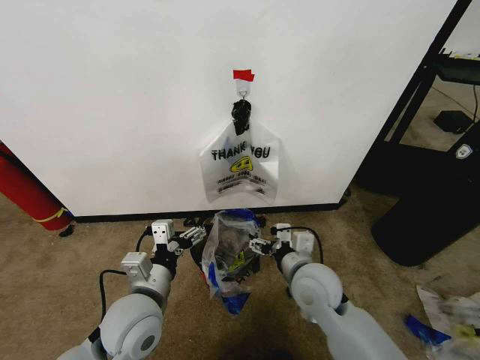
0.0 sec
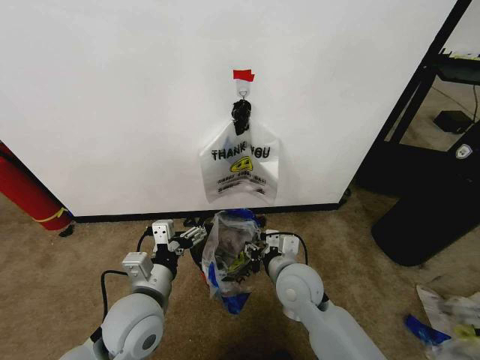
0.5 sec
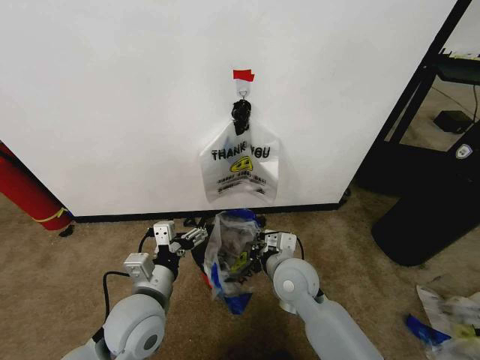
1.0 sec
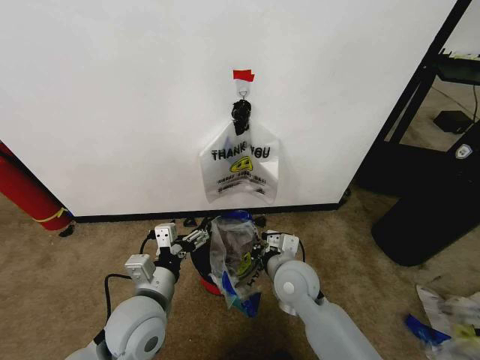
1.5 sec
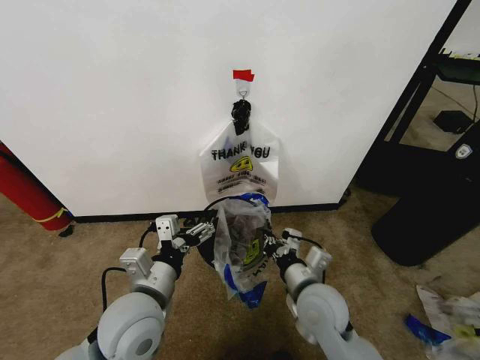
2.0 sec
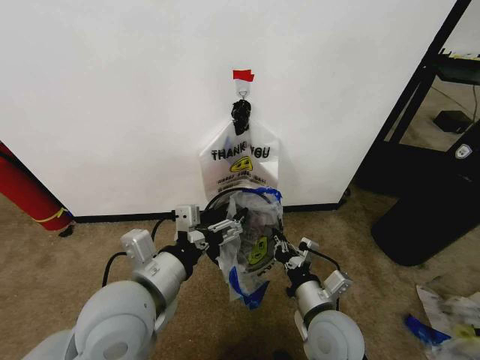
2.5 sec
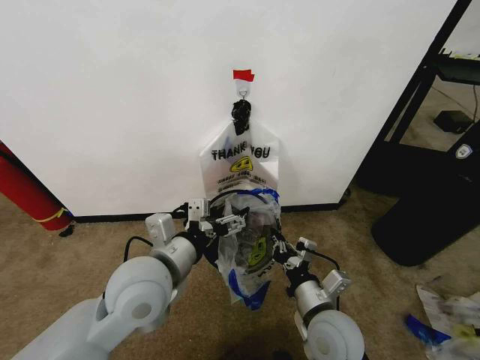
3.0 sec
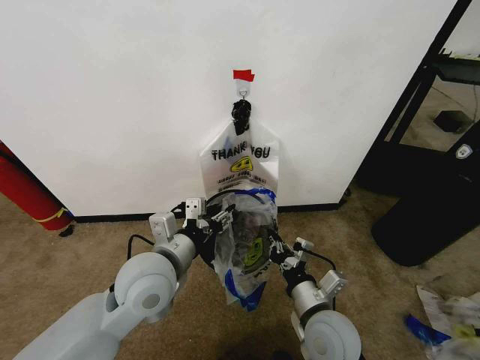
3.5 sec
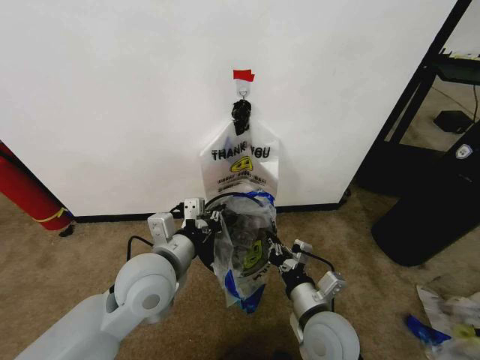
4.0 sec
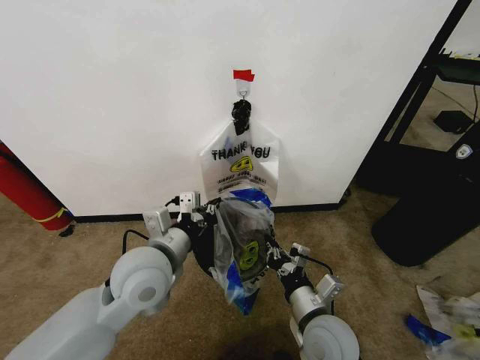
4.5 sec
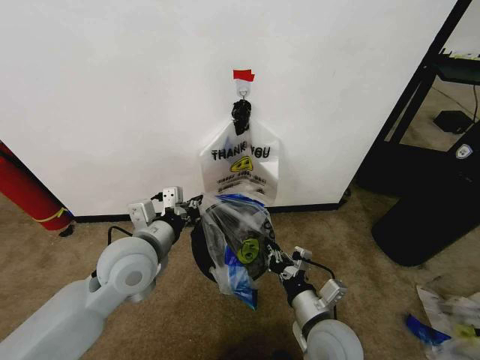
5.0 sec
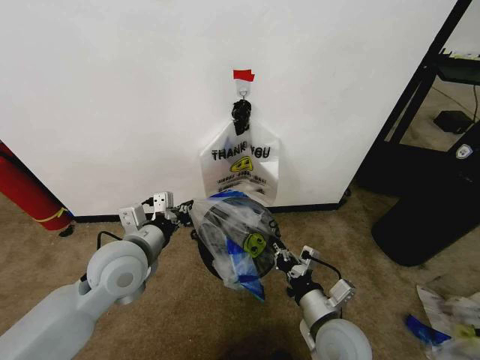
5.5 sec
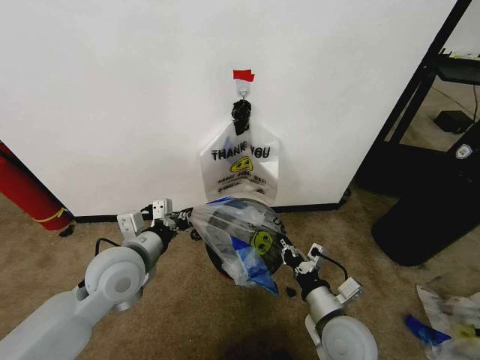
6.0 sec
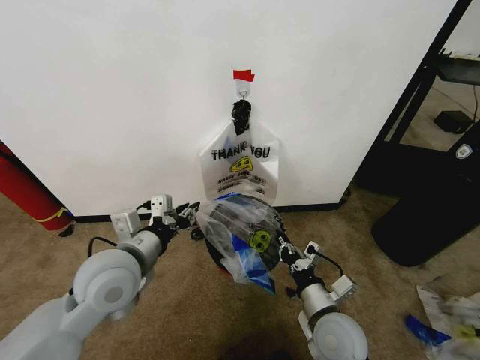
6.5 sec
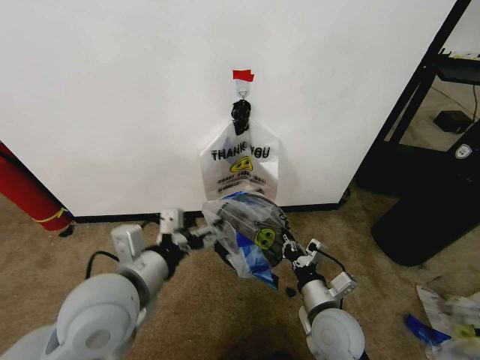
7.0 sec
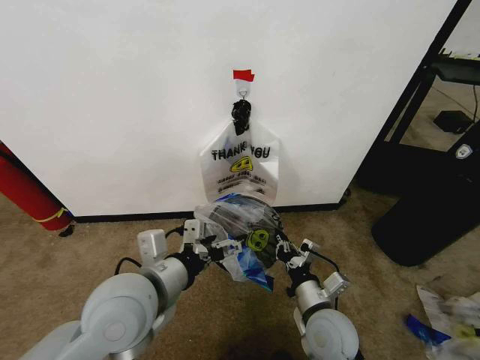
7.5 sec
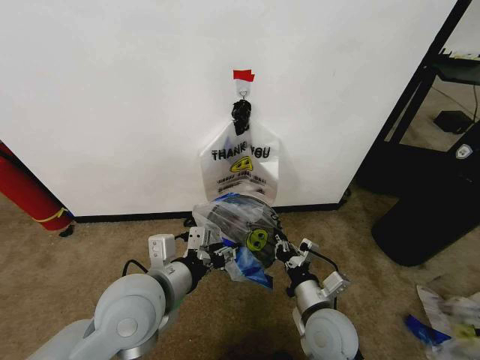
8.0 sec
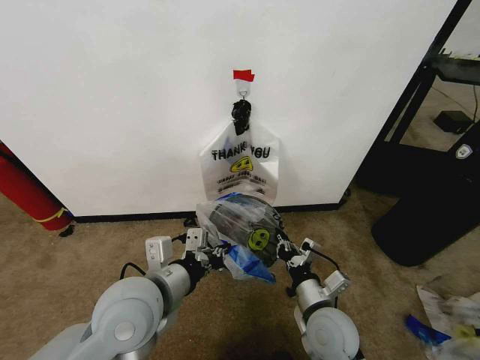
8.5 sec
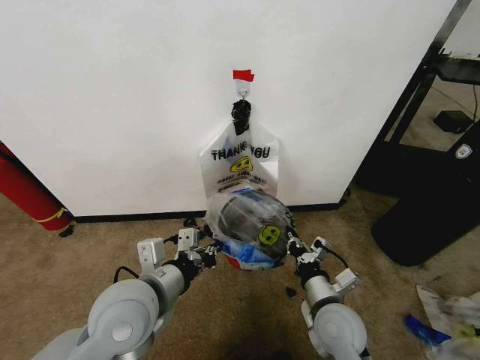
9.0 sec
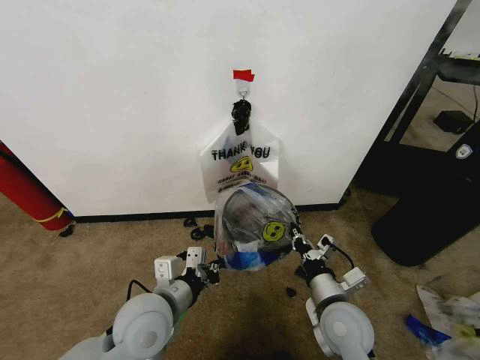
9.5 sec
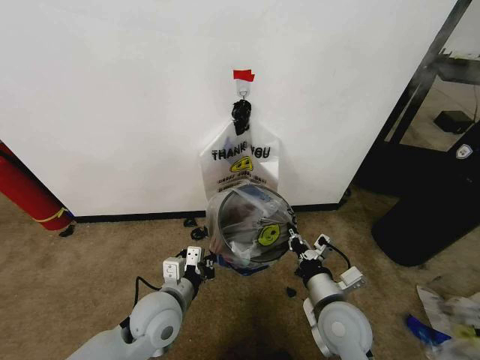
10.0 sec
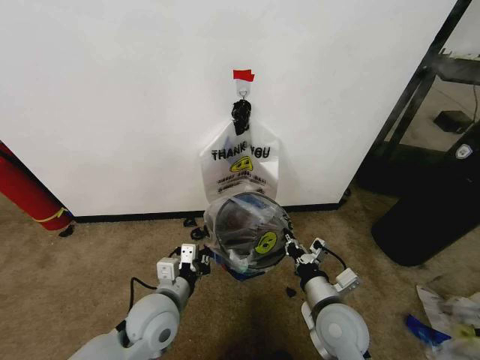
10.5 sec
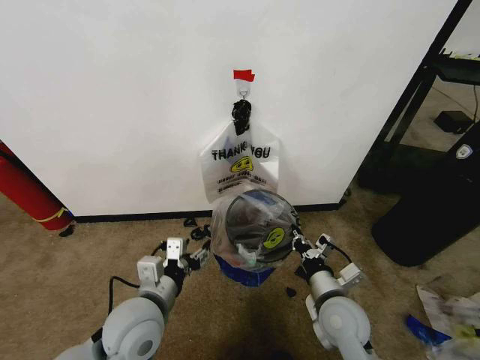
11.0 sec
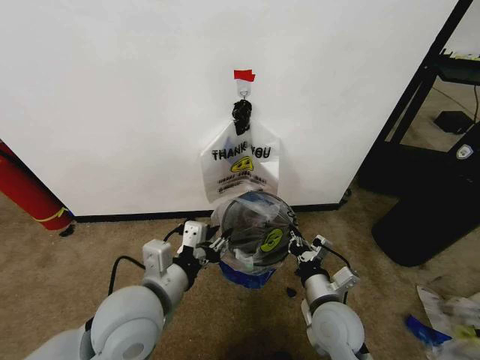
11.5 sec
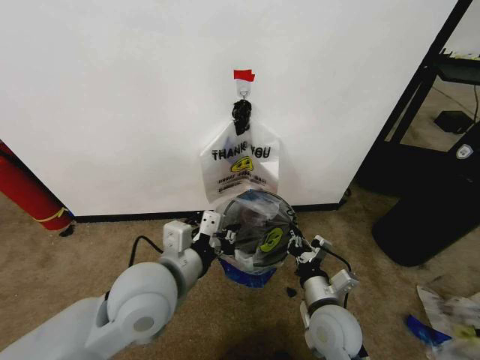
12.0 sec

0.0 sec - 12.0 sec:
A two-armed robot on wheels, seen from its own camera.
Task of the whole recording: Pick up the garbage bag from the wall and place it over the trash bin.
0.0 sec - 2.0 sec: The right gripper closes up.
2.0 sec - 4.0 sec: The left gripper shifts about 5 cm forward, and closes its fingers.
4.0 sec - 6.0 sec: The left gripper goes approximately 5 cm to the left.
6.0 sec - 8.0 sec: The left gripper is displaced backward and to the right by some 10 cm, and opens up.
8.0 sec - 10.0 sec: The left gripper heads downward, covering some 15 cm, and closes.
10.0 sec - 12.0 sec: The left gripper travels upward by some 15 cm, and opens, then closes again.

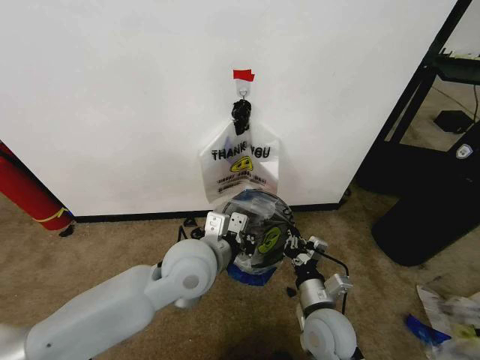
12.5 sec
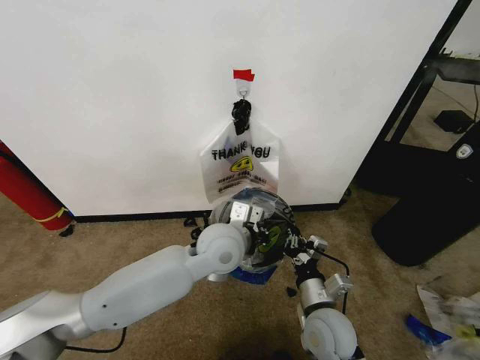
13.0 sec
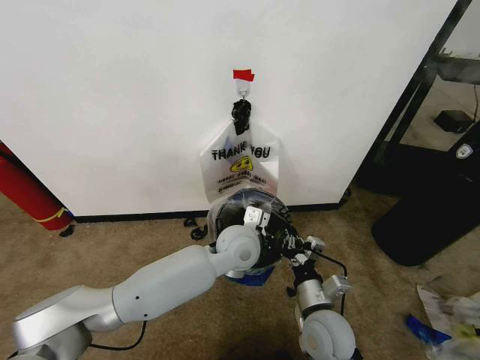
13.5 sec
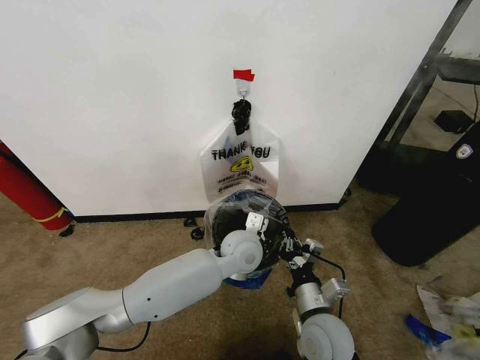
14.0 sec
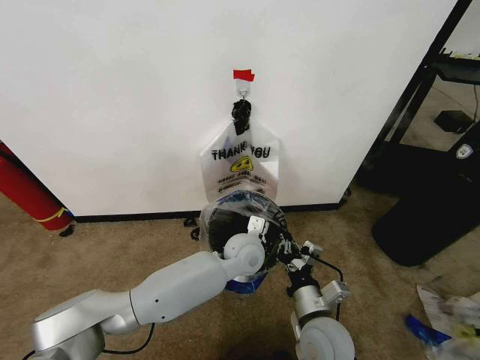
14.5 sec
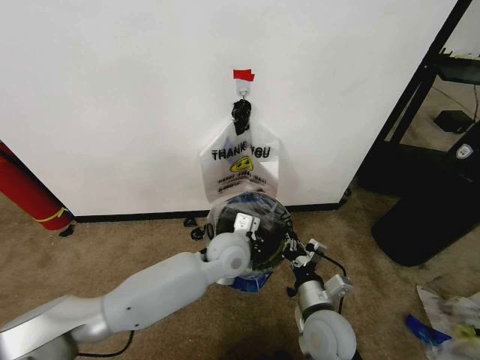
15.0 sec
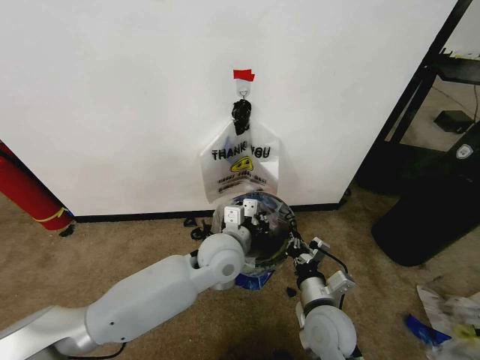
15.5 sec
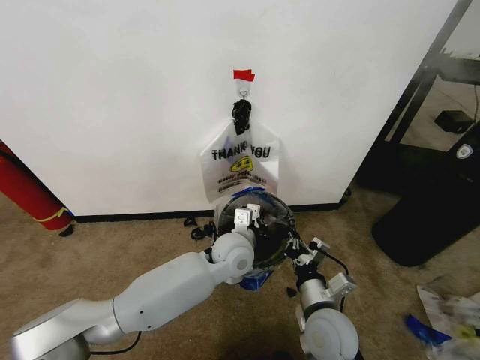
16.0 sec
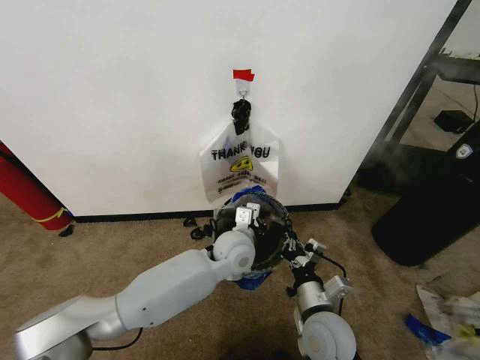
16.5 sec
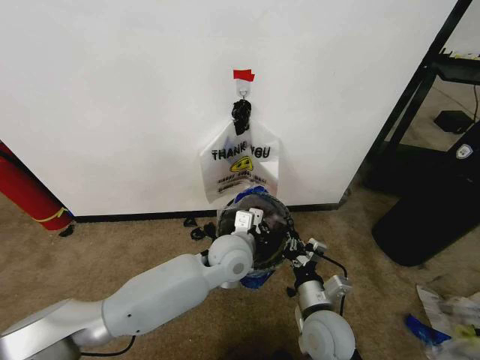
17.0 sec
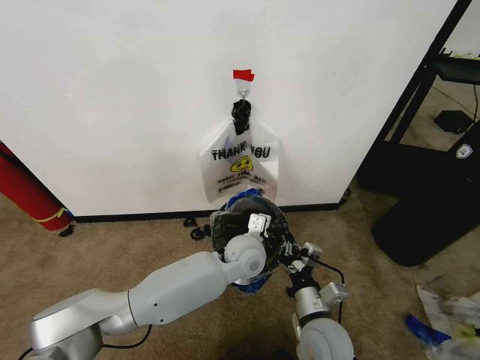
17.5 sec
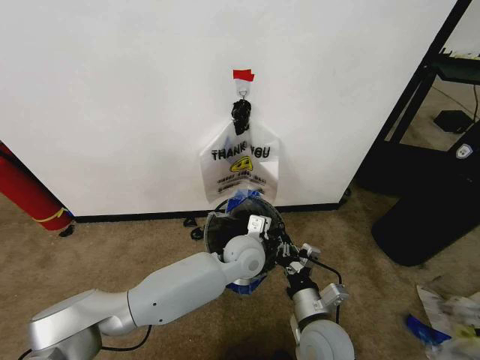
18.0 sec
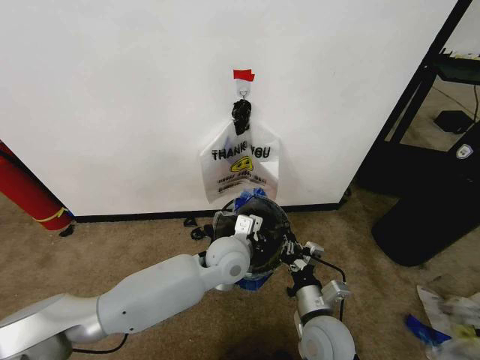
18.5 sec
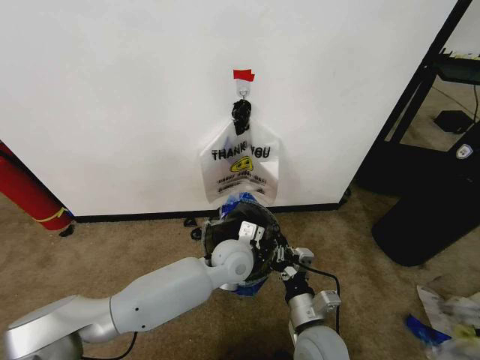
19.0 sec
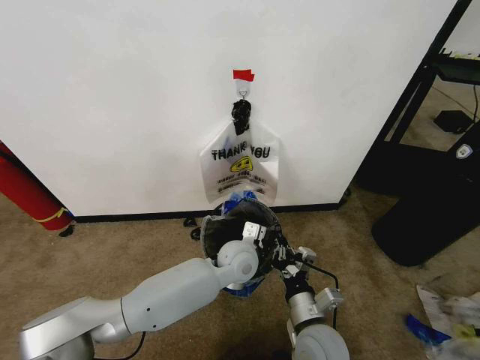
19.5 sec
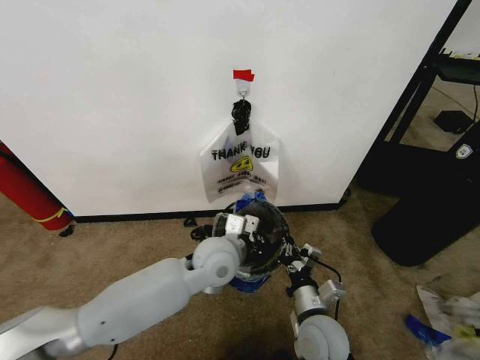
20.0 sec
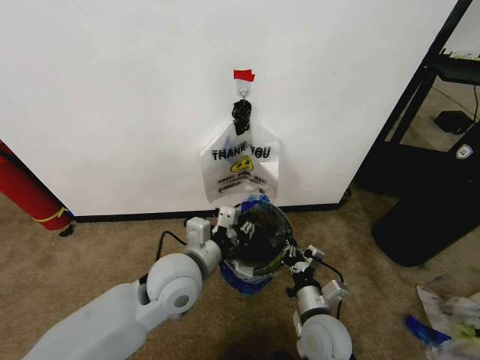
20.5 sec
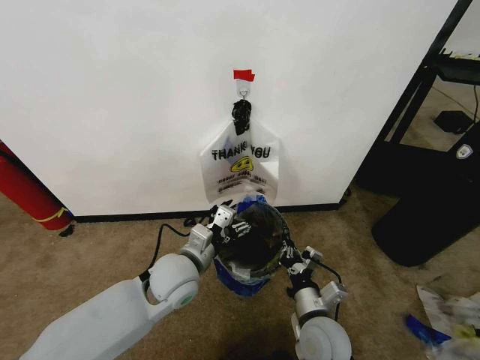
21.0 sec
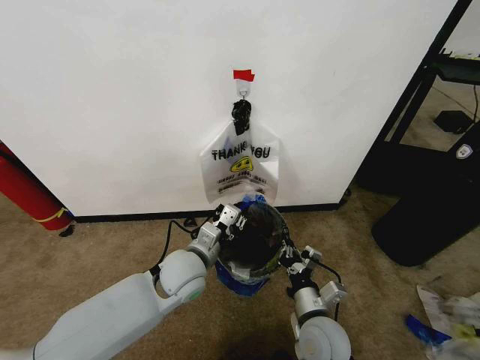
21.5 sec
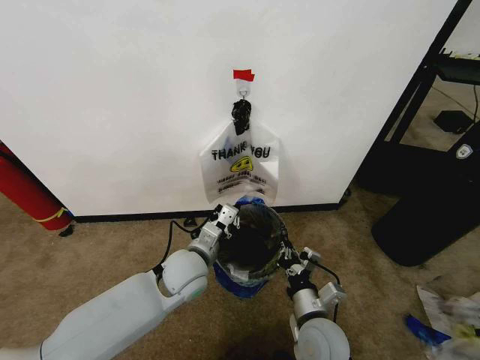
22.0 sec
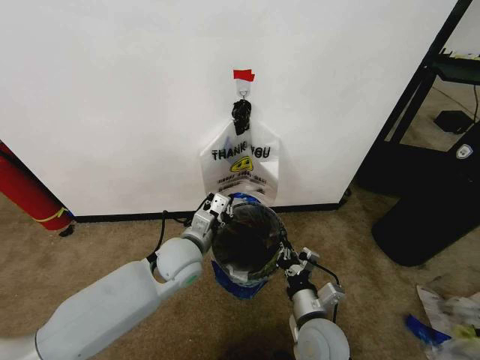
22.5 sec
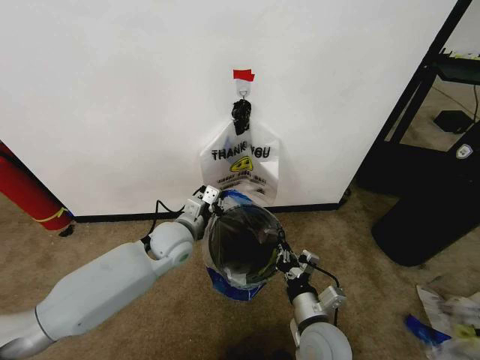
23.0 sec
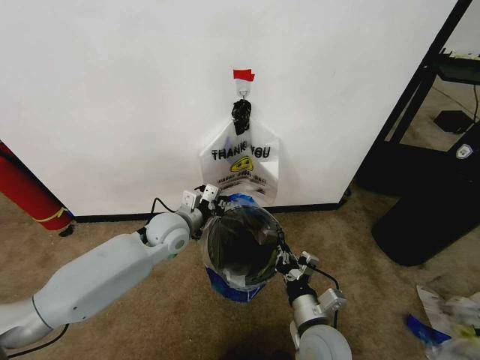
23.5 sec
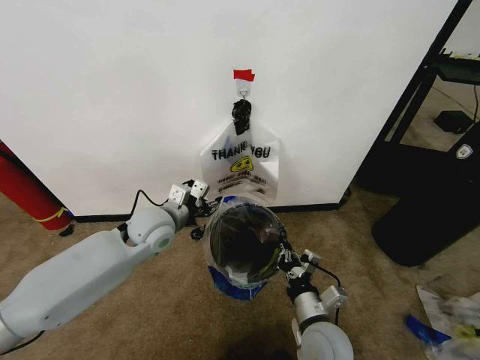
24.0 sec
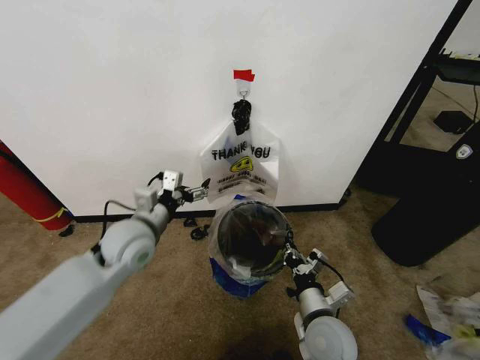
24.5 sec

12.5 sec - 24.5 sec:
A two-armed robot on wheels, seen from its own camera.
Task of the whole recording: Pick up the garbage bag from the wall and place it over the trash bin.
12.5 sec - 14.5 sec: The left gripper goes about 20 cm downward, to the right and forward.
16.5 sec - 18.5 sec: The grippers make only small movements.
18.5 sec - 20.5 sec: The left gripper travels to the left and backward by roughly 10 cm.
20.5 sec - 22.5 sec: The left gripper is displaced forward and downward by about 10 cm, and opens, then closes again.
22.5 sec - 24.5 sec: The left gripper shifts some 10 cm to the left and upward, and opens.

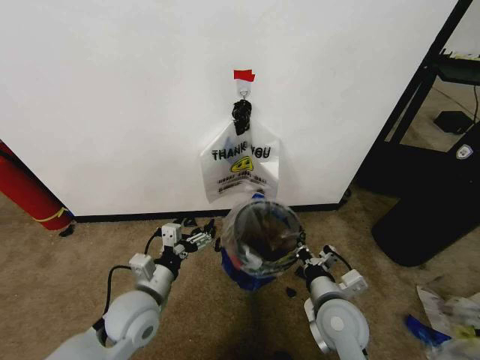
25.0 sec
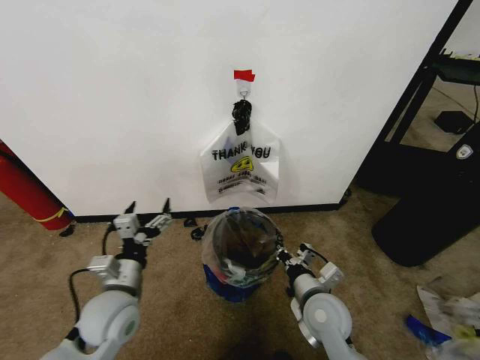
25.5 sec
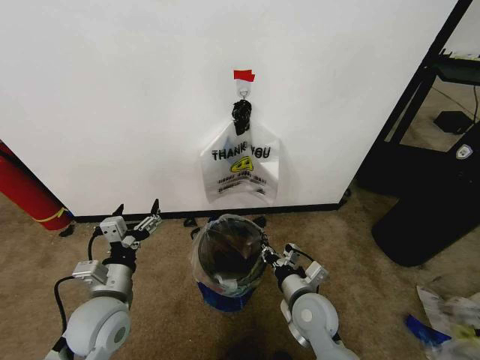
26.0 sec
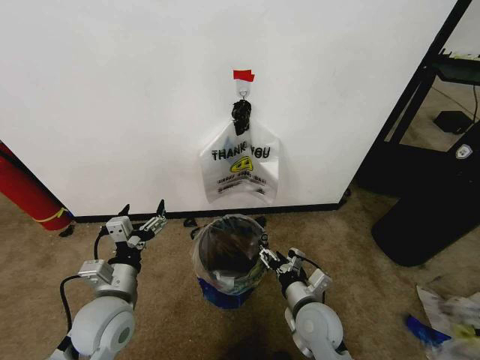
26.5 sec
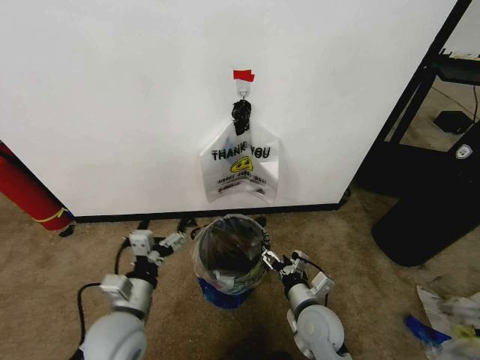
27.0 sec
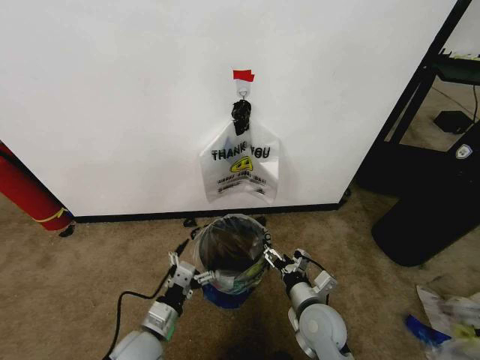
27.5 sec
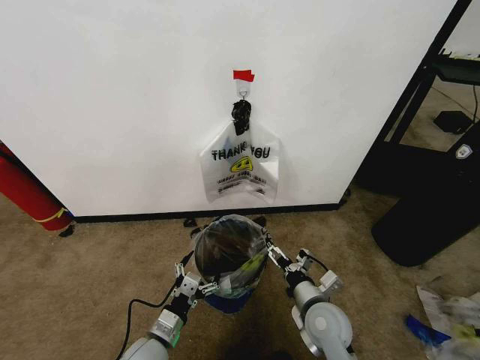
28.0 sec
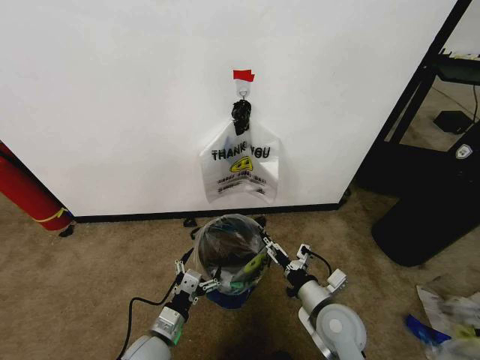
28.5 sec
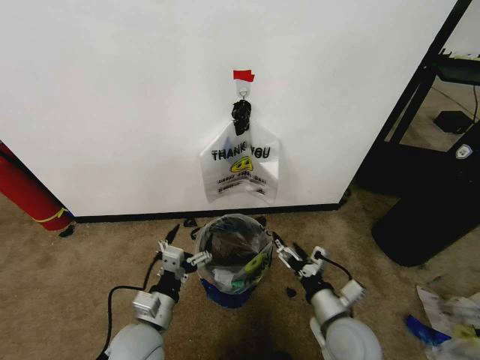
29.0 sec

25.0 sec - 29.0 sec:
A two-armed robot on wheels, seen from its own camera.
Task of the whole recording: Pick up the garbage bag from the wall and place it over the trash bin.
25.0 sec - 27.0 sec: The right gripper goes some 5 cm downward, and opens up. The left gripper moves backward, approximately 5 cm.
27.0 sec - 29.0 sec: The right gripper moves some 5 cm.
